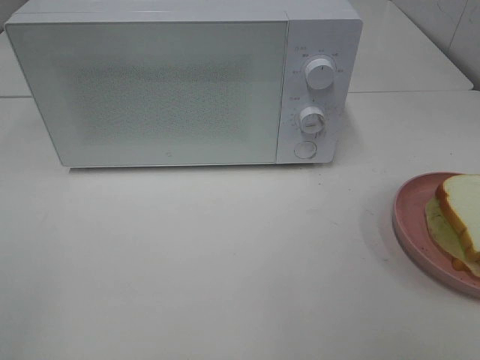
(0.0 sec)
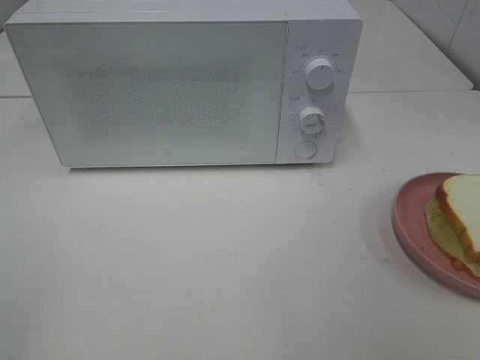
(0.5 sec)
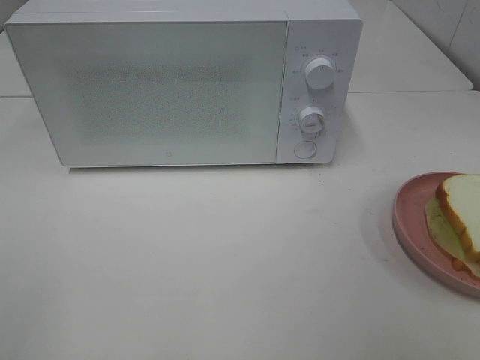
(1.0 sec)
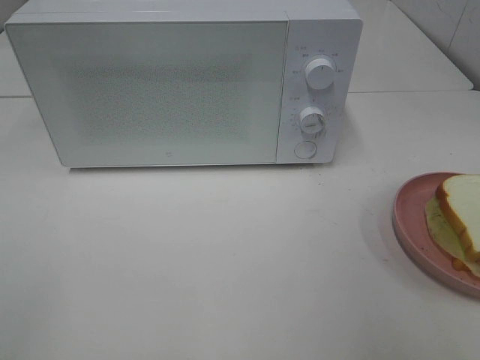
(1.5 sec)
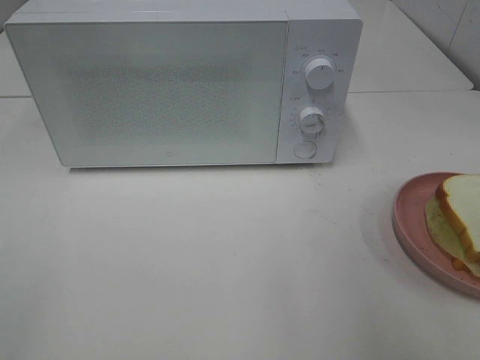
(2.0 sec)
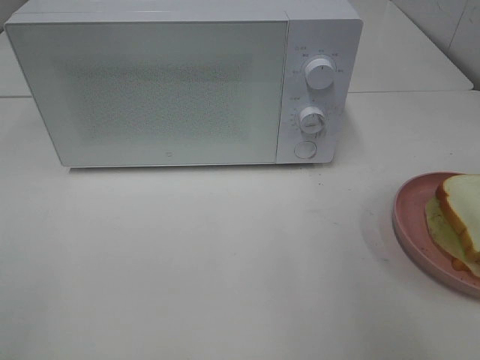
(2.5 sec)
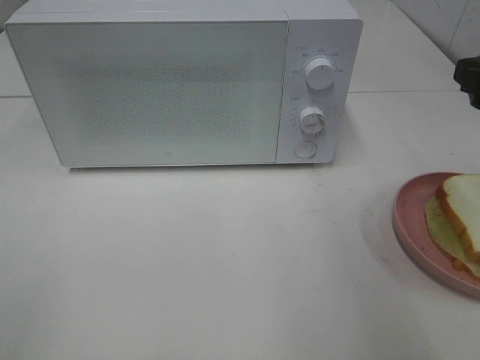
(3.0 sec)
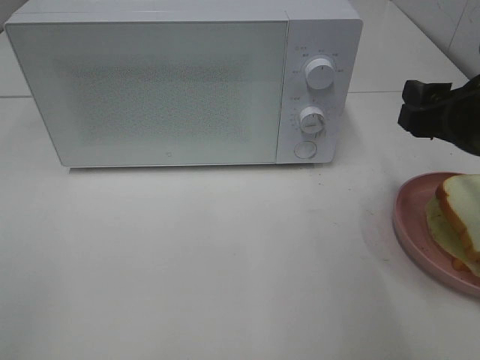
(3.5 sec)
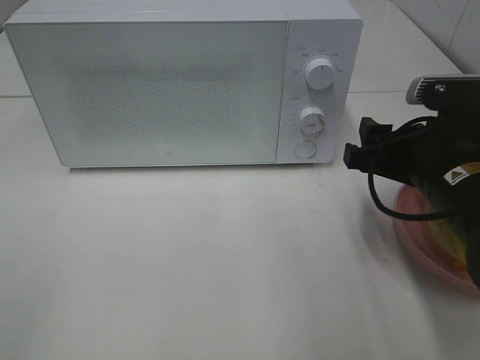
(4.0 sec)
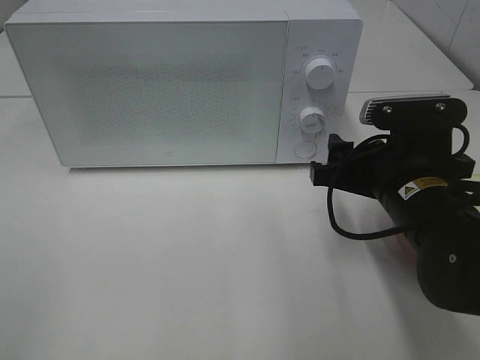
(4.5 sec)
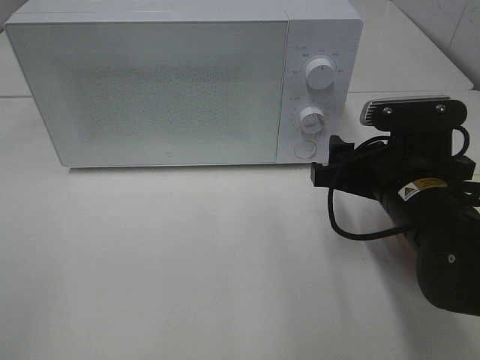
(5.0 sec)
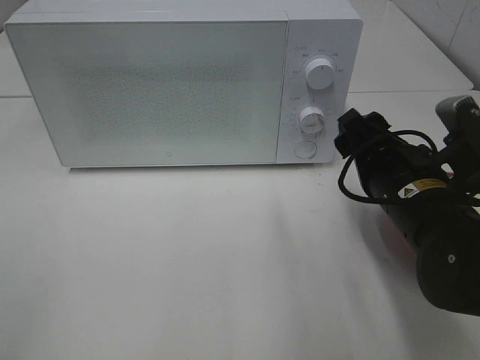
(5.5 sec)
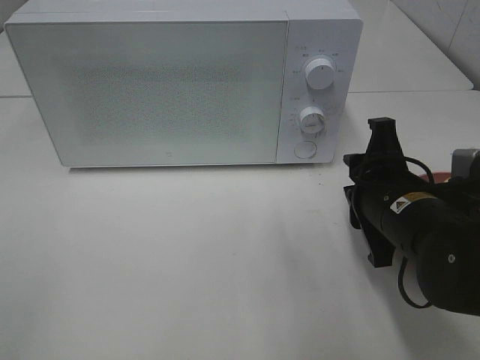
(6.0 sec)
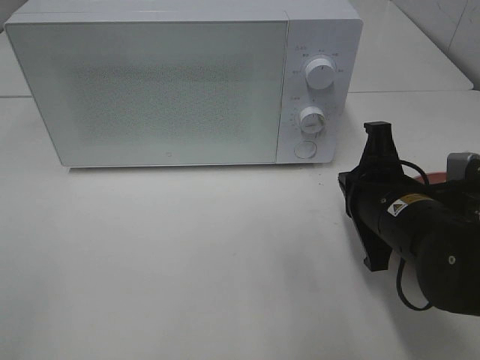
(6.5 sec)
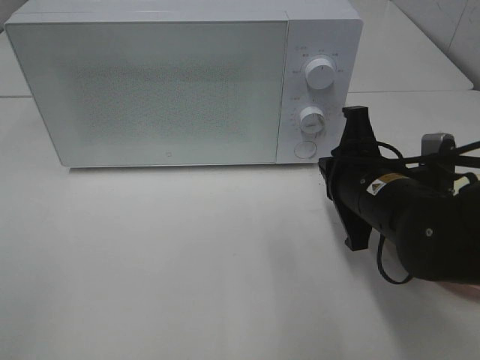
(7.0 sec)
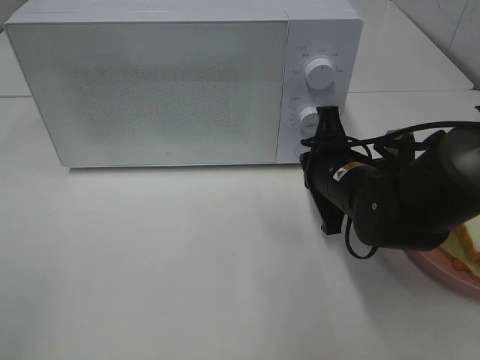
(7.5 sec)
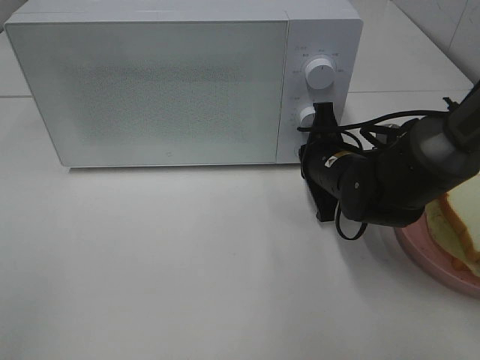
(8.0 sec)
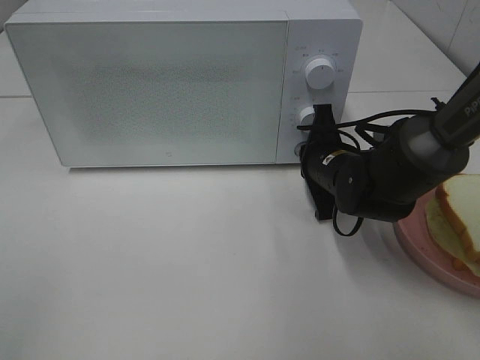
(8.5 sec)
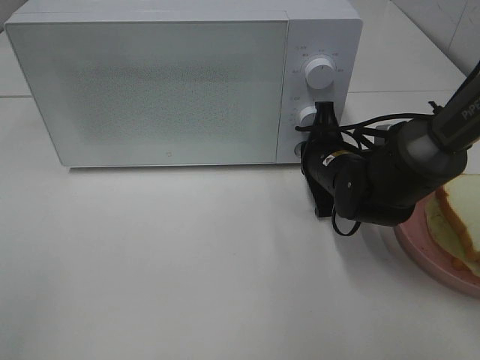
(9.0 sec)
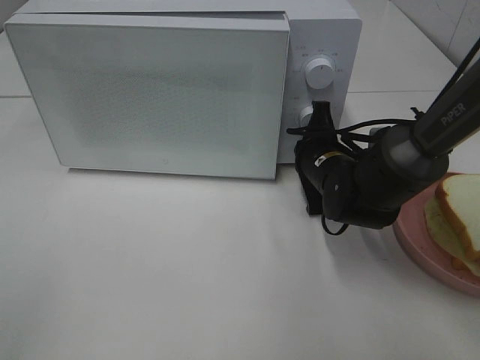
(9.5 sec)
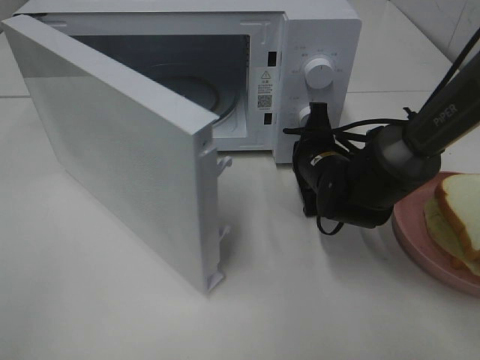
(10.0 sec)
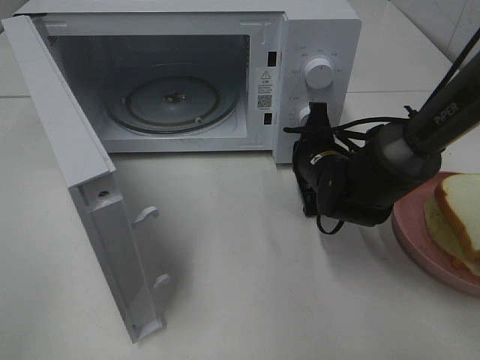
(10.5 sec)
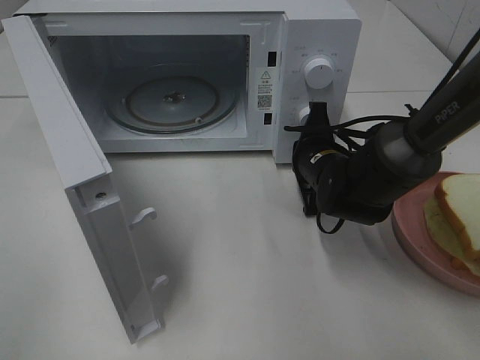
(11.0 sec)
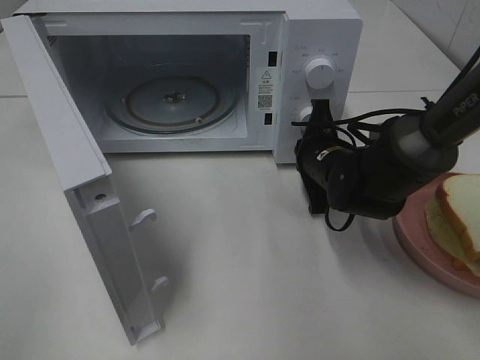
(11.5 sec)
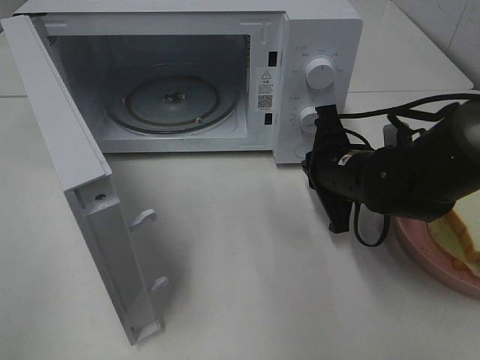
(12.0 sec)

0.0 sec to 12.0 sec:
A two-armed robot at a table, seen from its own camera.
Task of the whole recording: Heat Sandwich.
Step, 0.0 sec to 12.0 sec: Right hand: press the switch.
2.0 sec to 4.0 sec: The right gripper shifts approximately 20 cm downward, forward and to the left.
4.0 sec to 6.0 sec: The right gripper closes its fingers.
6.0 sec to 8.0 sec: The right gripper goes approximately 10 cm forward, and closes its fingers.
10.0 sec to 12.0 sec: The right gripper shifts by roughly 5 cm.

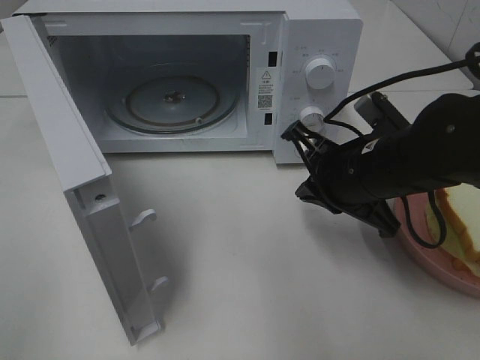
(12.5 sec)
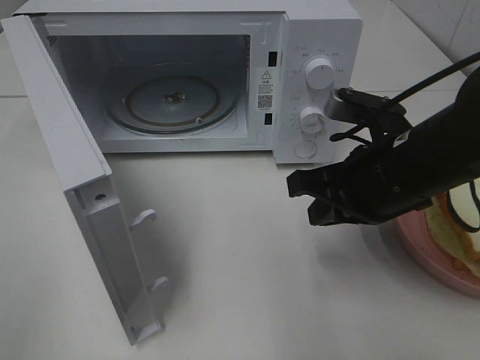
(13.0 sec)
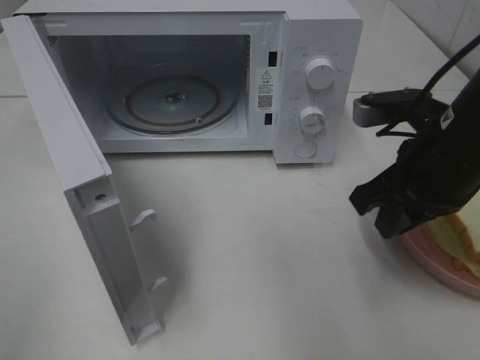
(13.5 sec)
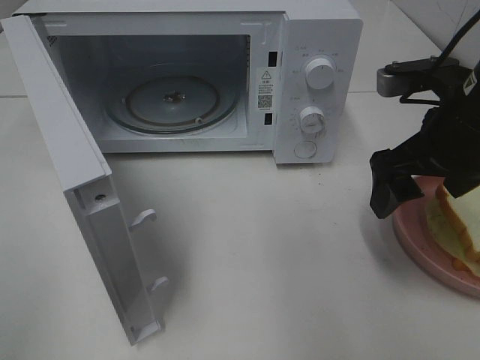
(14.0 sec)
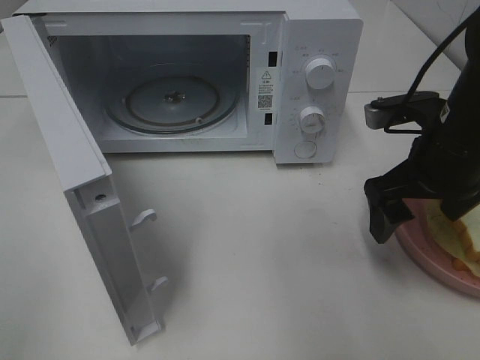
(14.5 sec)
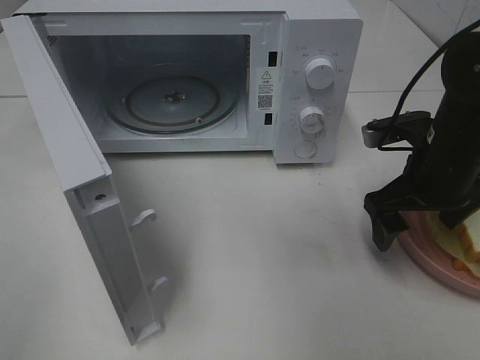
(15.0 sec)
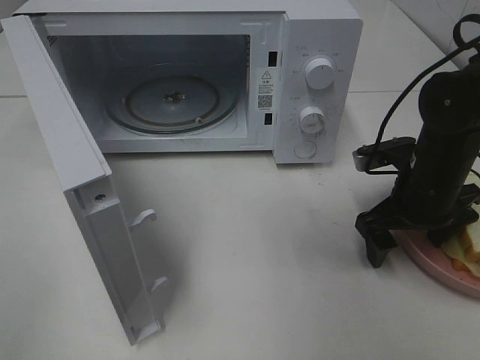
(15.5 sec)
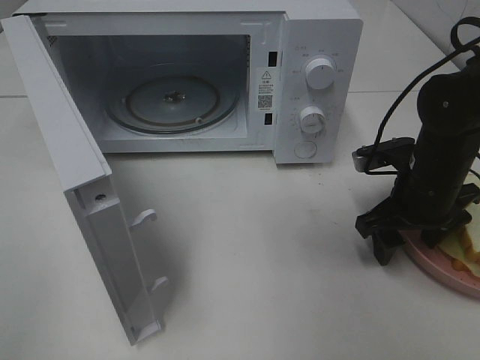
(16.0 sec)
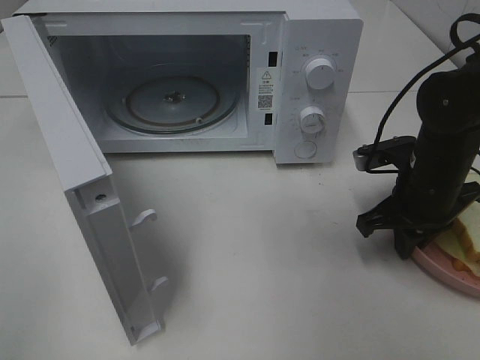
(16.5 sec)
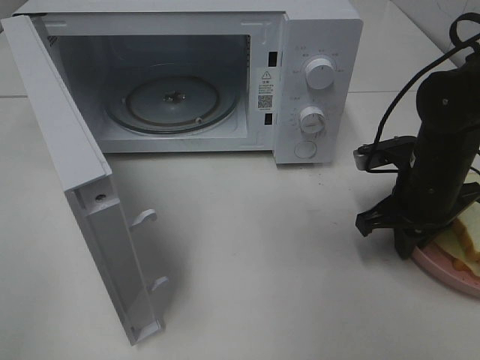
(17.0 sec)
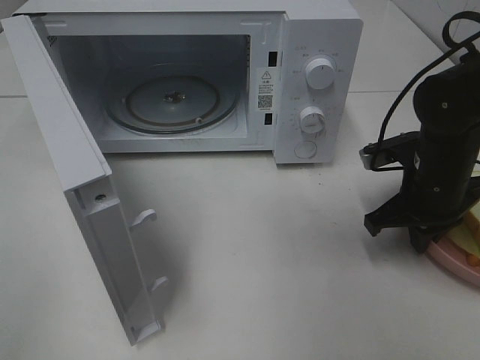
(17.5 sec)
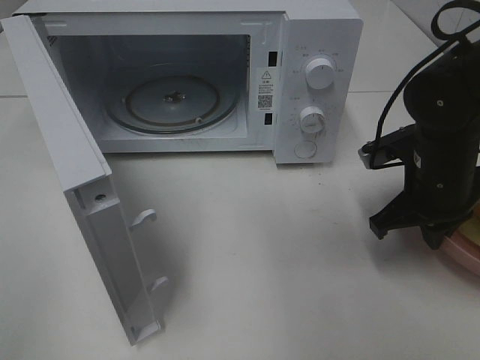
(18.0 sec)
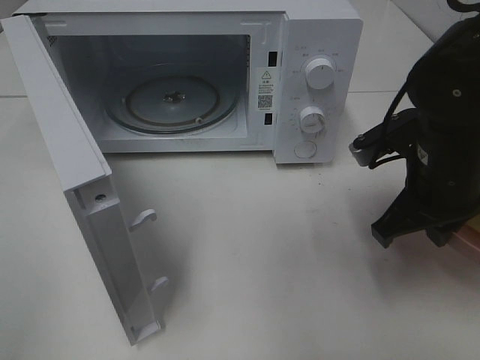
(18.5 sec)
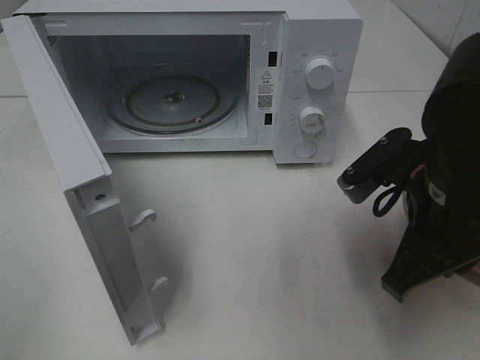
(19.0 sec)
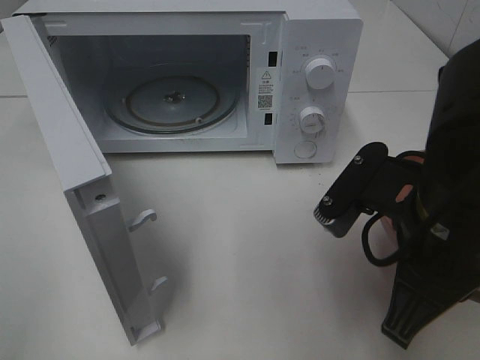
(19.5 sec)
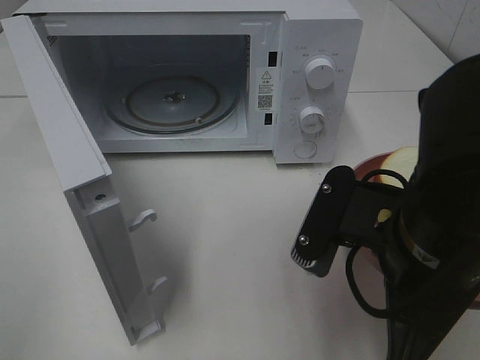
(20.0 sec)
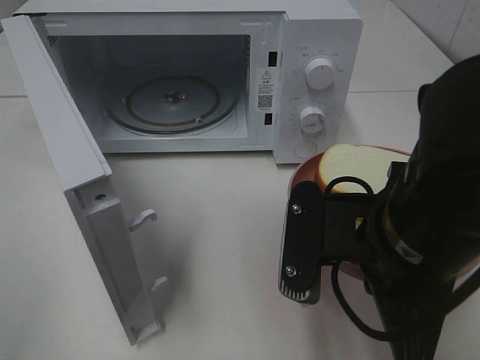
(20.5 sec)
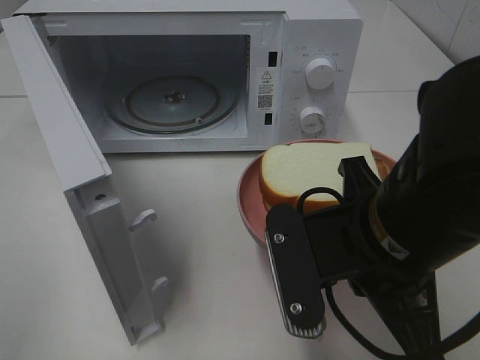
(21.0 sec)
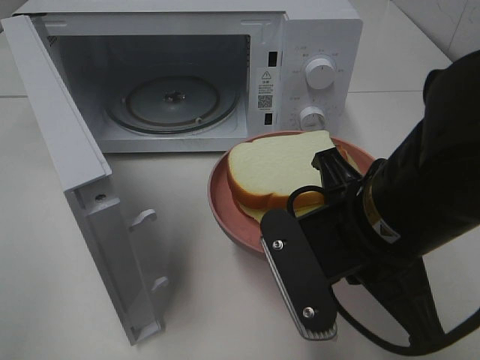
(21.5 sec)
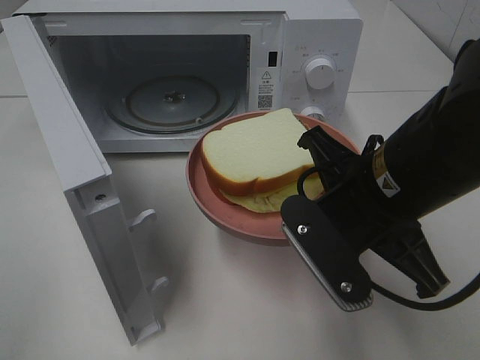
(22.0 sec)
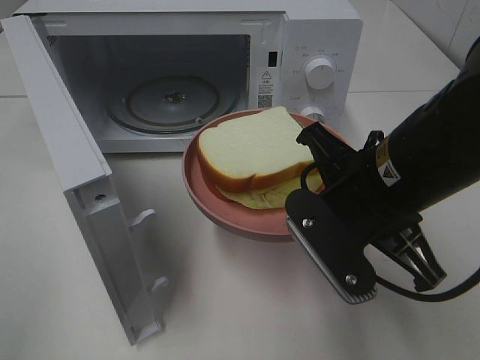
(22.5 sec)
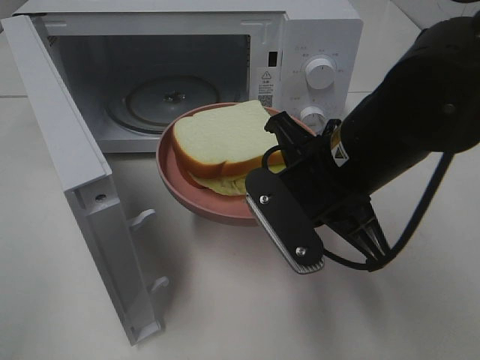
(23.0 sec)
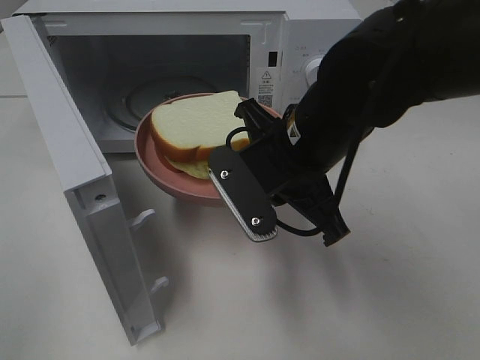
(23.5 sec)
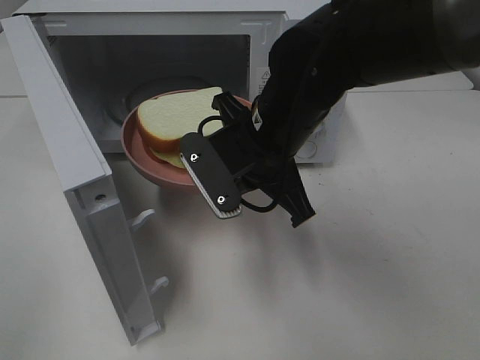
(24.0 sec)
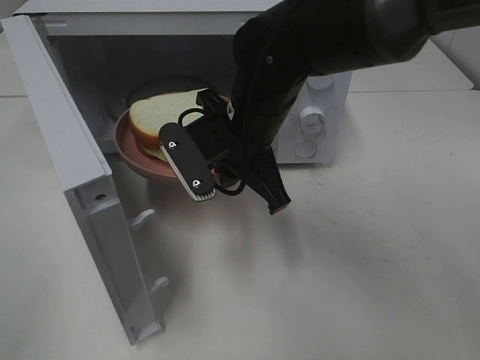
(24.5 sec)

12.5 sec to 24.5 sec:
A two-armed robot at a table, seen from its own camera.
Task of the whole recording: Heat Sandwich.
Step, 12.5 sec to 16.5 sec: Right hand: grab the plate with the sandwich.
12.5 sec to 14.5 sec: The right gripper is displaced to the right by roughly 5 cm, and opens.
14.5 sec to 16.5 sec: The right gripper is displaced downward by about 10 cm, and closes its fingers.
16.5 sec to 18.5 sec: The right gripper moves upward, roughly 5 cm.
18.5 sec to 20.5 sec: The right gripper shifts approximately 15 cm backward and to the left.
20.5 sec to 22.5 sec: The right gripper travels forward by approximately 5 cm.
22.5 sec to 24.5 sec: The right gripper goes some 15 cm forward and to the left.

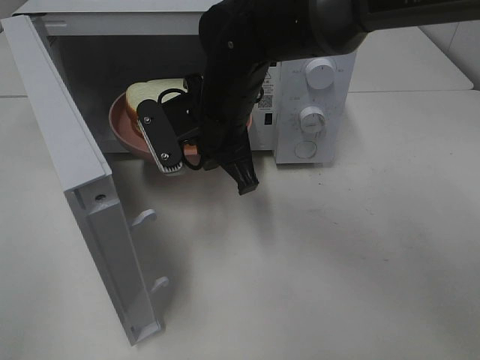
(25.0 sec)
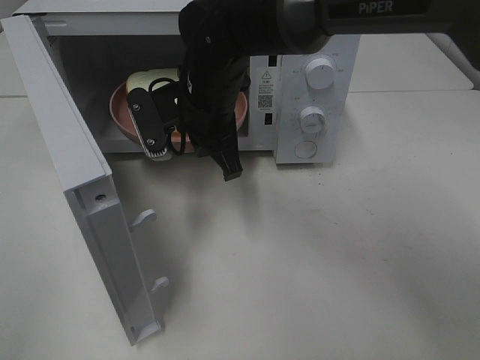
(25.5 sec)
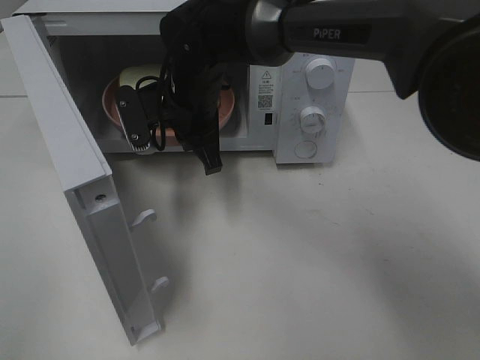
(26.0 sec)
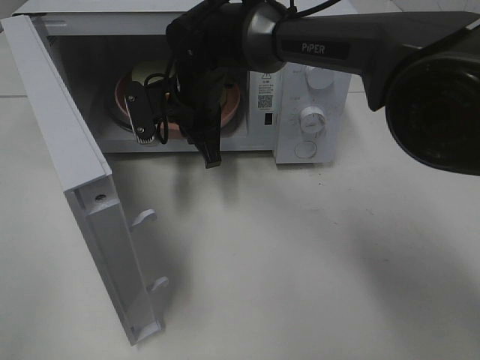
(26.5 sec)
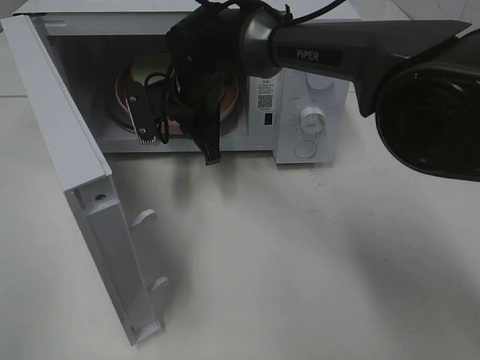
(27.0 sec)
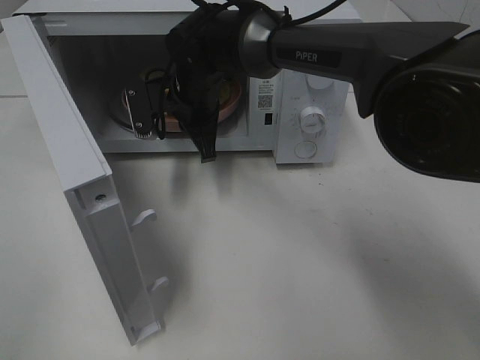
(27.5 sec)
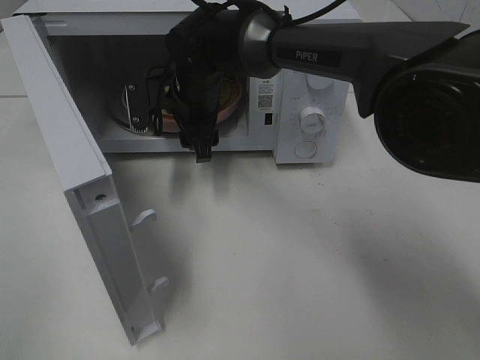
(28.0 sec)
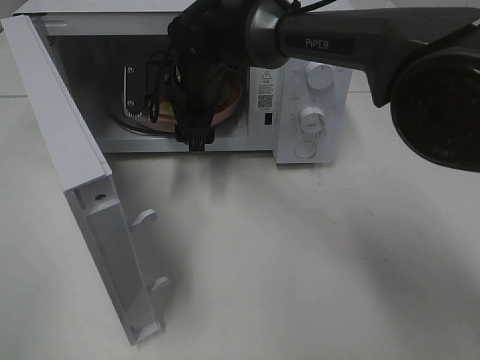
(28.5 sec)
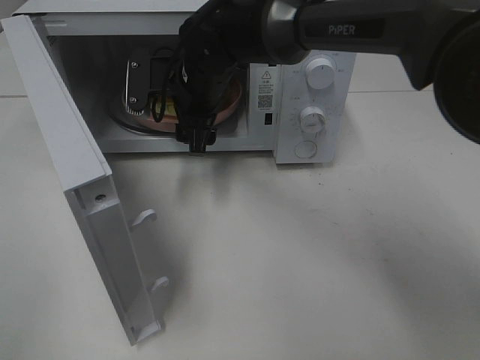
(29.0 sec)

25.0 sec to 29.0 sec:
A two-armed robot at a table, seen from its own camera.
Task of the whole recording: Heat Sandwich.
25.0 sec to 27.0 sec: The right gripper is displaced forward by approximately 10 cm.
27.0 sec to 29.0 sec: The right gripper opens up.
